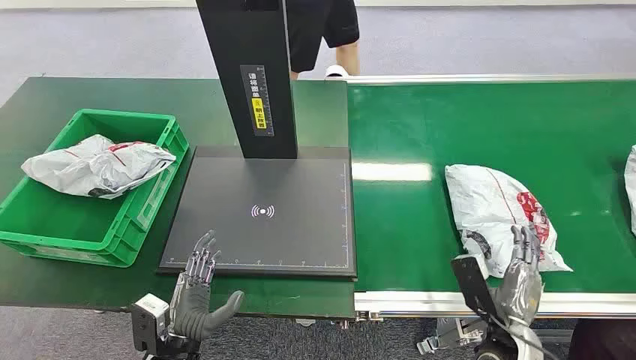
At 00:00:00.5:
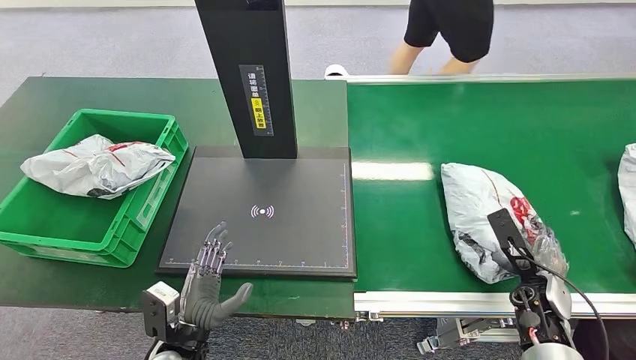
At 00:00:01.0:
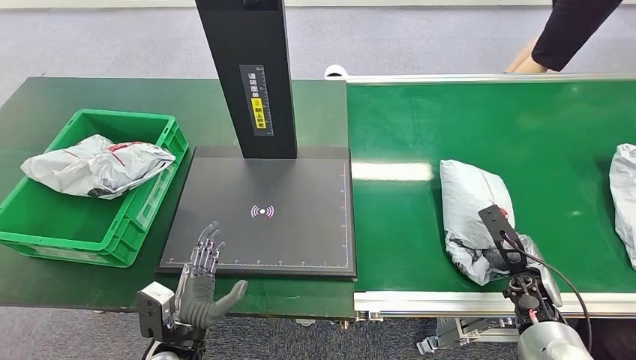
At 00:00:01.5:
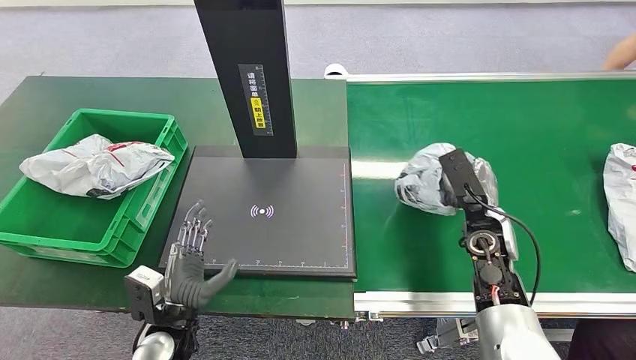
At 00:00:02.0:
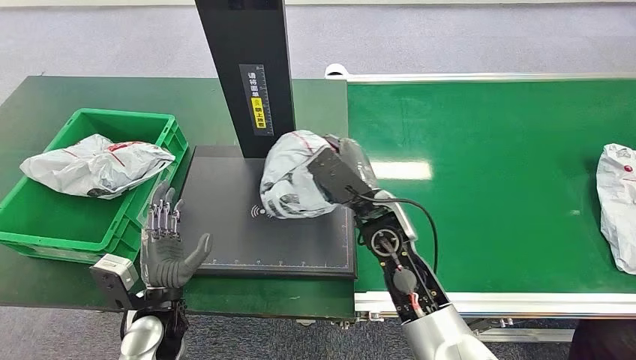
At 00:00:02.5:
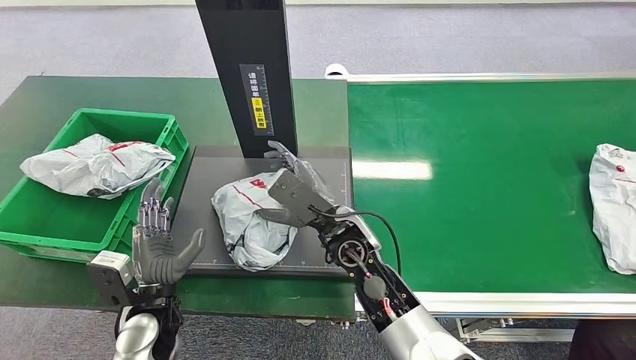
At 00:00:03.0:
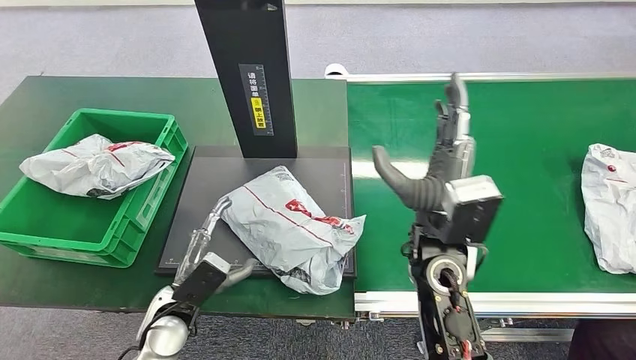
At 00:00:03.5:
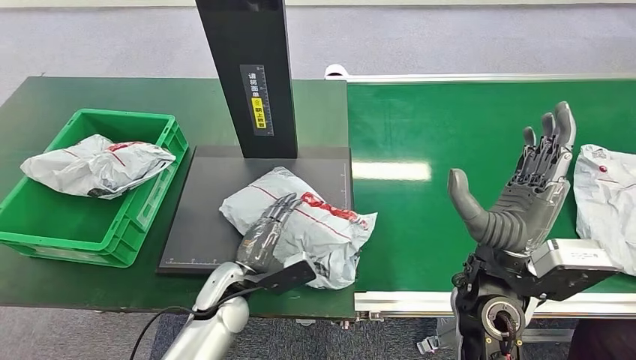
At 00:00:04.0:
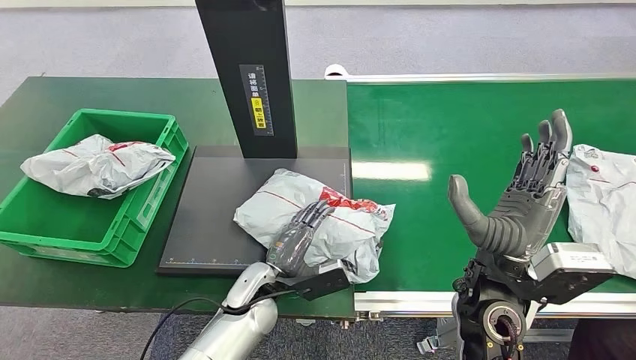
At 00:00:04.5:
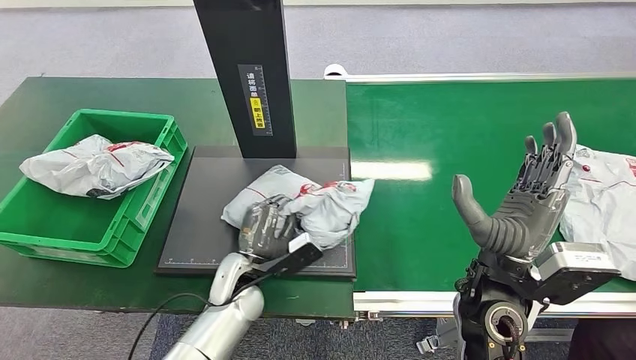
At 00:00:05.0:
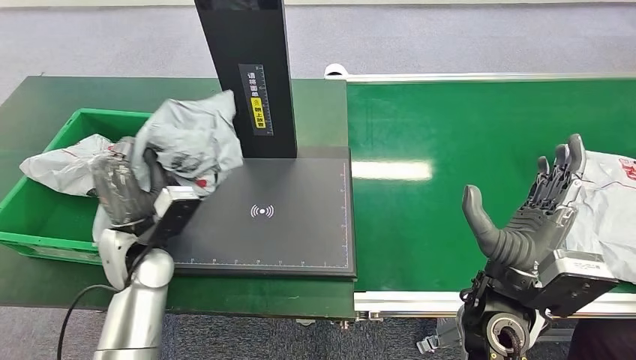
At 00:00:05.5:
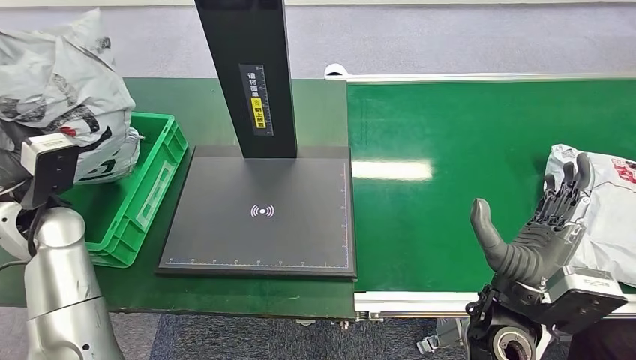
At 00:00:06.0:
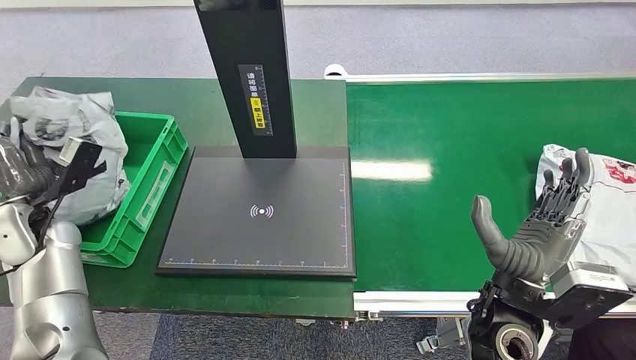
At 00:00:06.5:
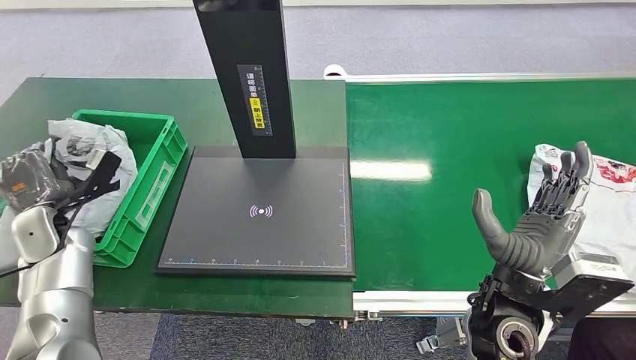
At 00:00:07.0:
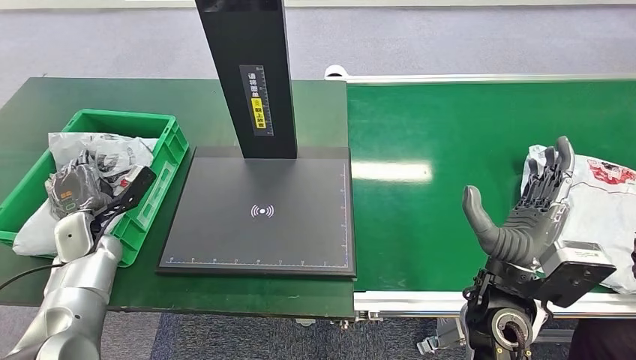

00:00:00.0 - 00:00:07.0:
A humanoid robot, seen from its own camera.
Step, 00:00:00.0 - 00:00:01.5: Pick up the package from the conveyor belt.
Step, 00:00:02.0 - 00:00:02.5: Place the package onto the inbound machine.
Step, 00:00:03.0 - 00:00:04.5: Pick up the package from the inbound machine.
Step, 00:00:05.0 - 00:00:07.0: Place the package into the parcel locker.
